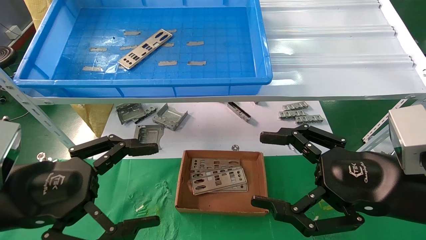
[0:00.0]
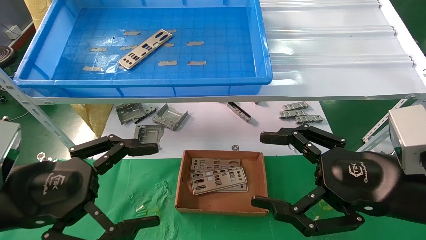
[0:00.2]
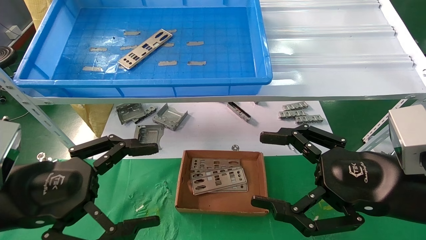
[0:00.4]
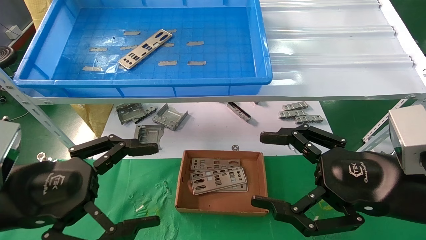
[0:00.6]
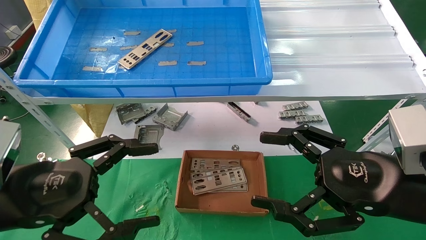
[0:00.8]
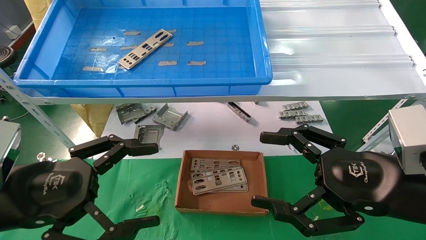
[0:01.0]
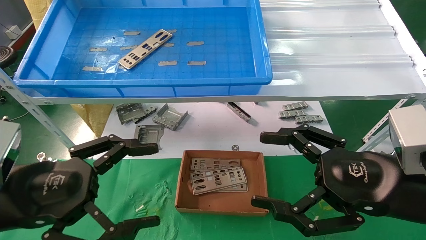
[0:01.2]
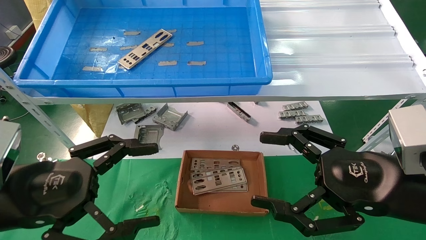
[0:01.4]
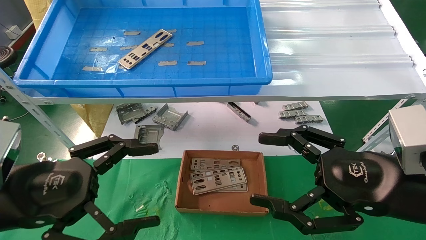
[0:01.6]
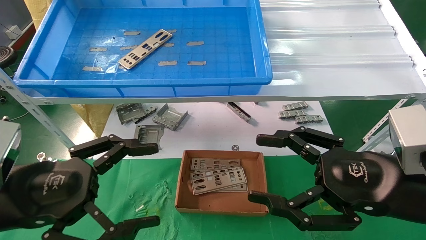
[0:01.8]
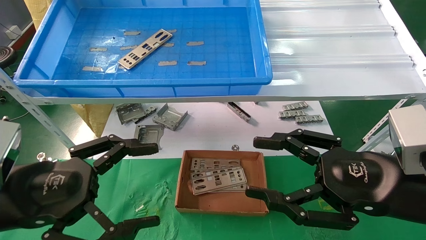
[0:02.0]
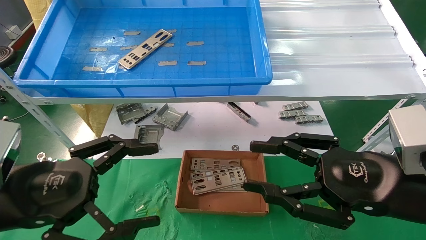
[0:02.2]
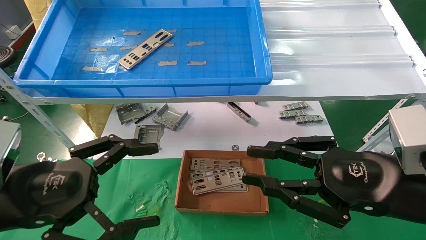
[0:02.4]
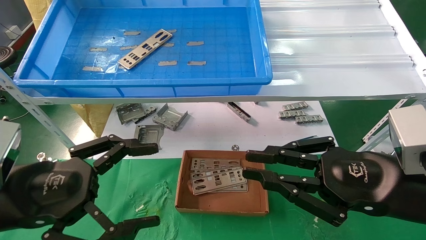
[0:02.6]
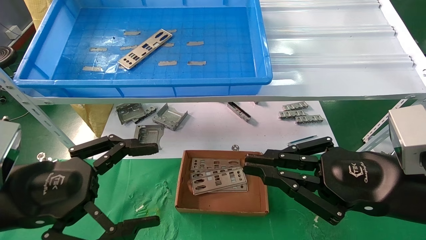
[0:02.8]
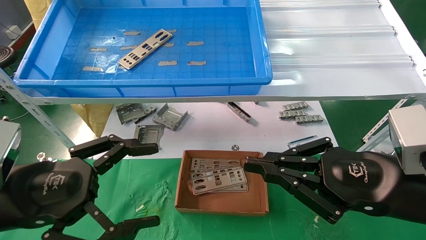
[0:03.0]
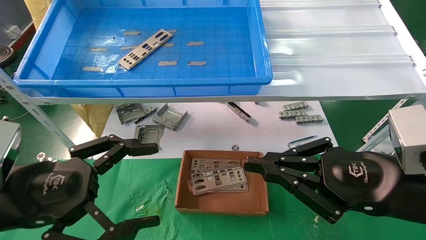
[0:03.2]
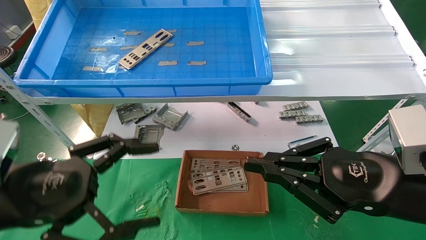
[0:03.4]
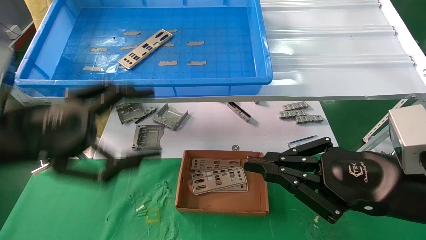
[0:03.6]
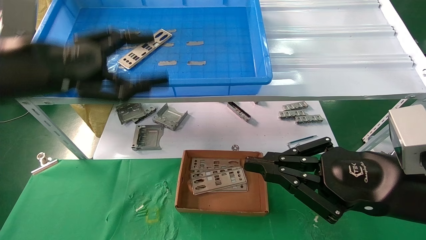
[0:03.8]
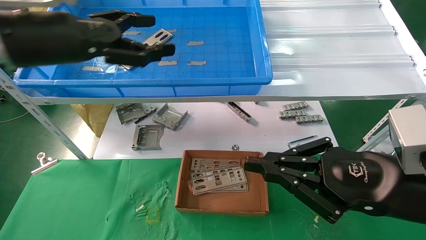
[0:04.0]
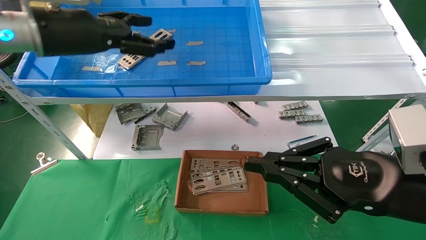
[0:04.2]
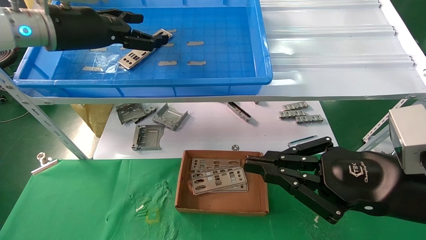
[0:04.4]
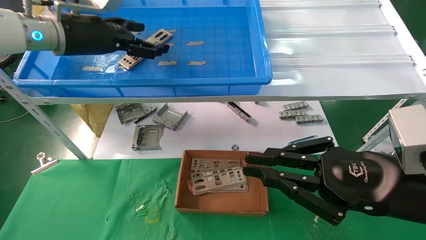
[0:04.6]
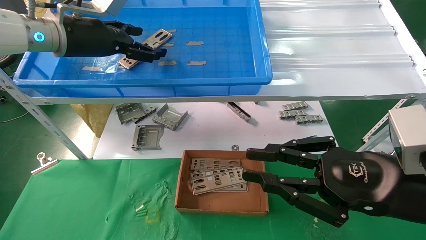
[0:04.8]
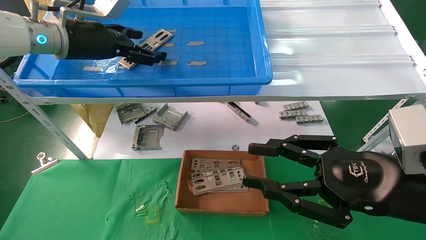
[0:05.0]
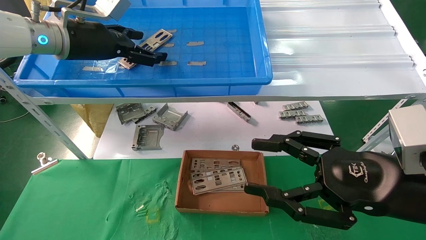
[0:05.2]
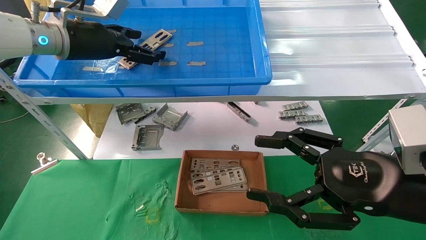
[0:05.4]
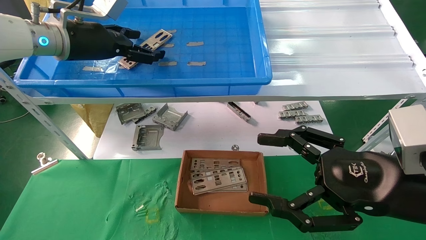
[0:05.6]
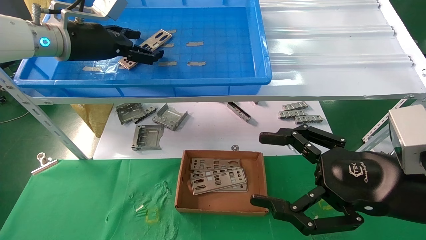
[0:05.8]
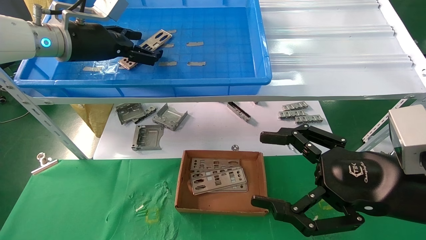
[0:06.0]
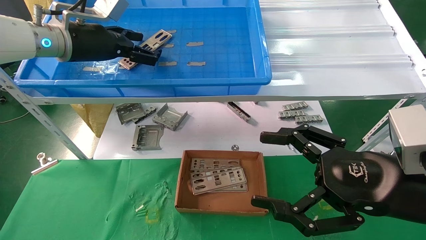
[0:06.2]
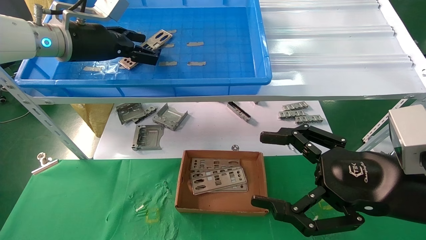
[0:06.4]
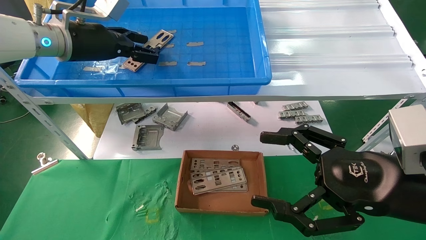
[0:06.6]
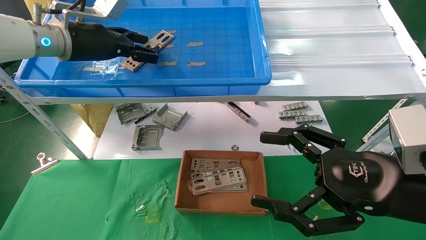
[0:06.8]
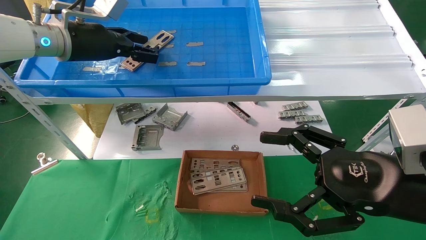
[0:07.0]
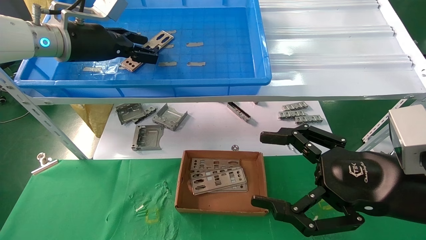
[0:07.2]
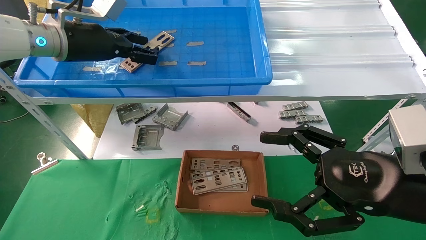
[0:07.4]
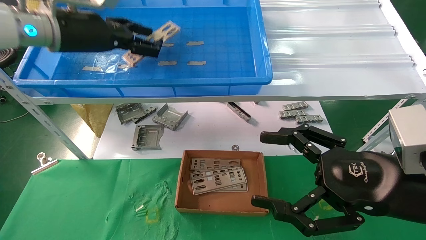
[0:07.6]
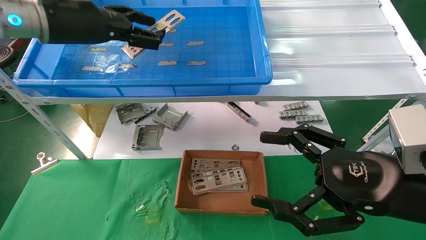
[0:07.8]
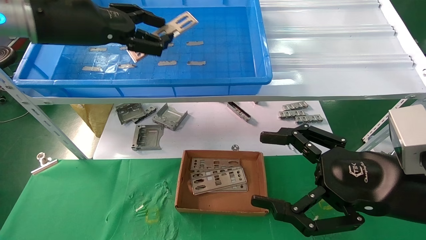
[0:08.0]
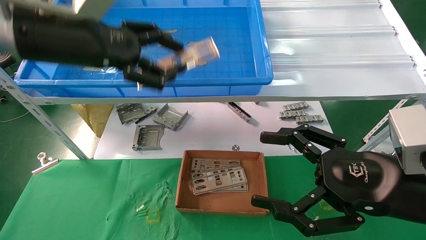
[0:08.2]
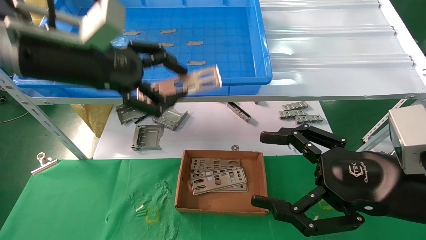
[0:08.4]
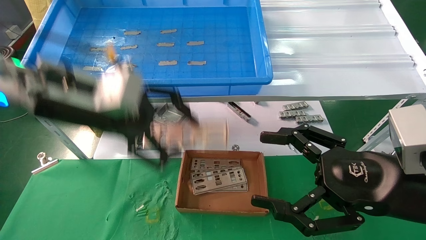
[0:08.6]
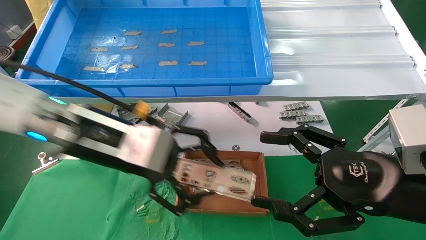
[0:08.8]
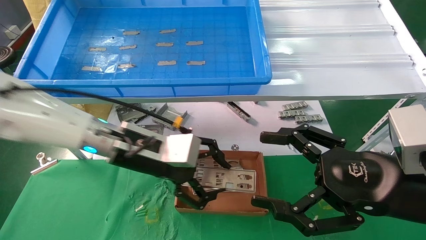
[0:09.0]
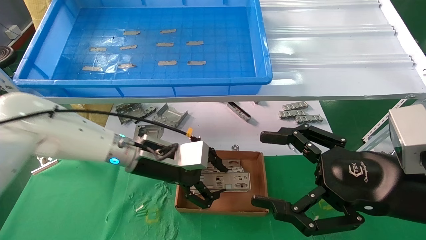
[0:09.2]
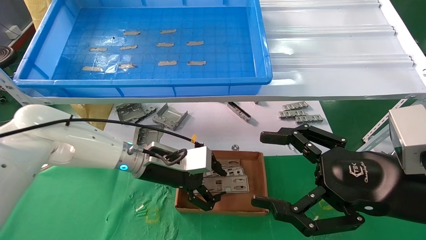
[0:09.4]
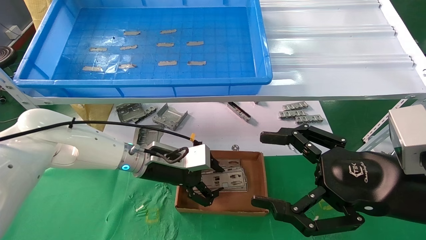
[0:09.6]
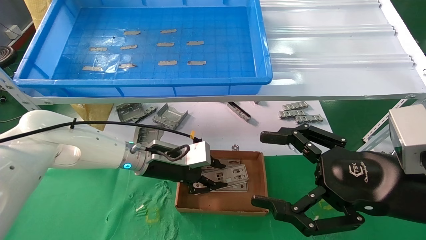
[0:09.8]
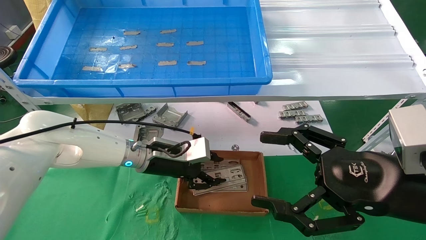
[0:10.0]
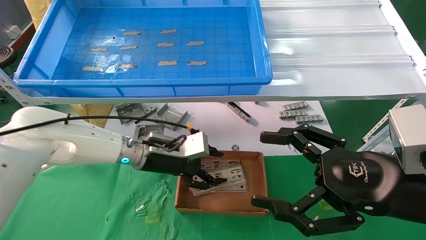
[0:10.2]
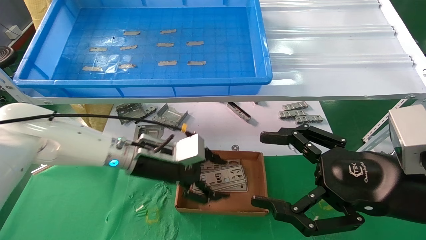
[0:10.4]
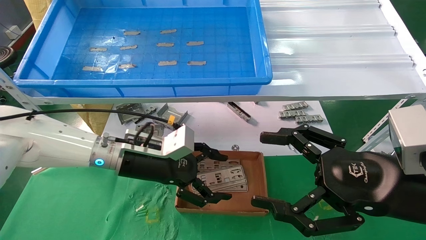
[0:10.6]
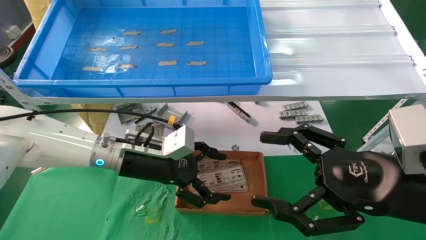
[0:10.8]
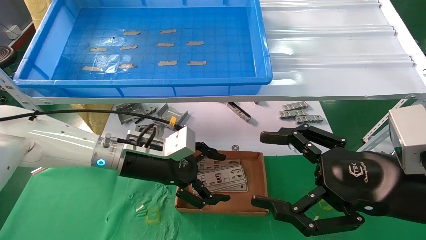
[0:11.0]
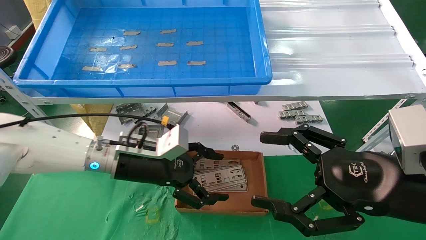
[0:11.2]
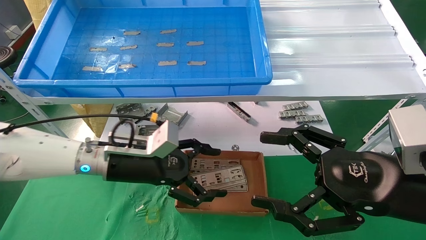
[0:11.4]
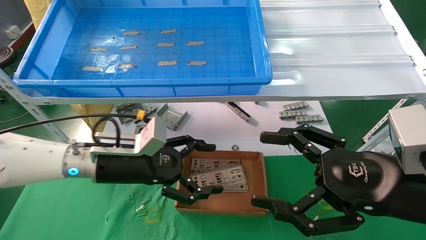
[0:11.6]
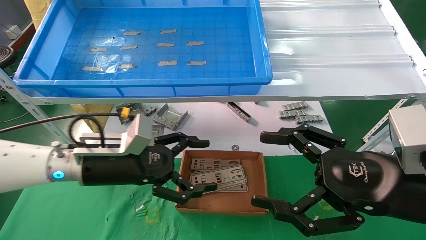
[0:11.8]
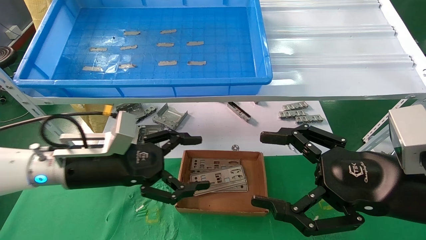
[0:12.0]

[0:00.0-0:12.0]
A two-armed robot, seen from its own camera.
Task of the whole recording: pick up the parts on the tray and put them in the cardboard box.
Step, 0:03.8 to 0:06.8: Pick up the IO bracket from the container box.
Step, 0:07.0 to 0:10.2: Place the IO bracket into the ingredient slot.
0:00.0 to 0:01.6: Both grippers stay about where they are.
0:01.6 to 0:03.0: The right gripper closes its fingers.
0:03.0 to 0:04.4: The left gripper is displaced forward and upward by approximately 25 cm.
0:04.4 to 0:06.0: The right gripper opens up.
0:06.0 to 0:07.6: The left gripper closes.
0:07.6 to 0:09.0: The left gripper heads downward and to the right, covering roughly 20 cm.
0:09.0 to 0:10.4: The left gripper is displaced downward by approximately 5 cm, and opens up.
0:10.4 to 0:12.0: The left gripper goes about 10 cm to the left and backward, and opens.

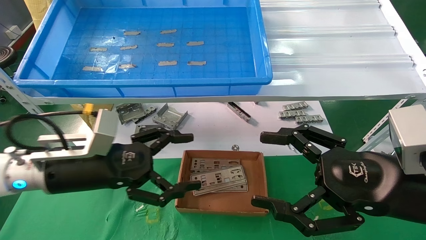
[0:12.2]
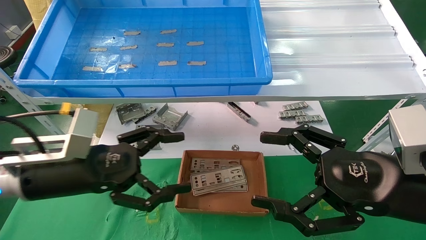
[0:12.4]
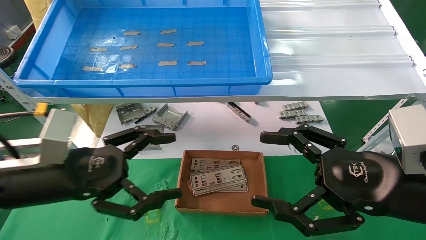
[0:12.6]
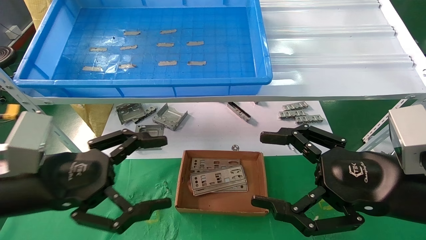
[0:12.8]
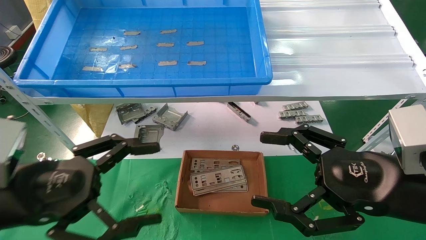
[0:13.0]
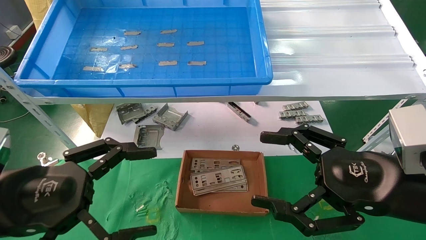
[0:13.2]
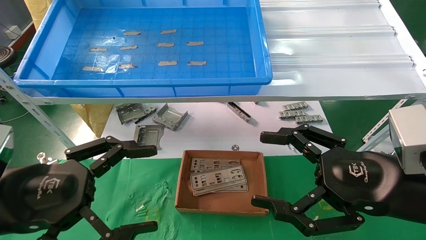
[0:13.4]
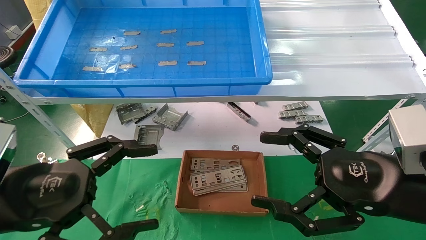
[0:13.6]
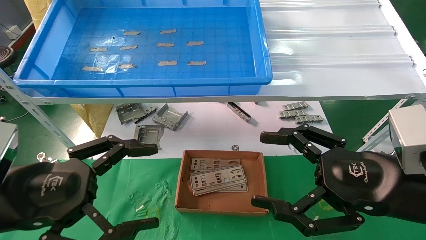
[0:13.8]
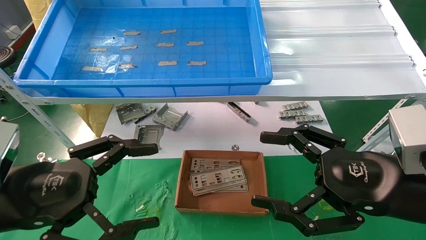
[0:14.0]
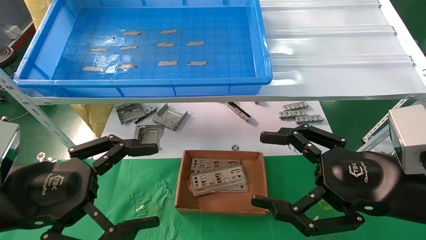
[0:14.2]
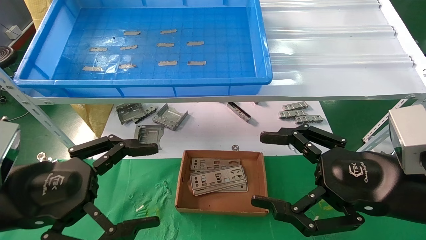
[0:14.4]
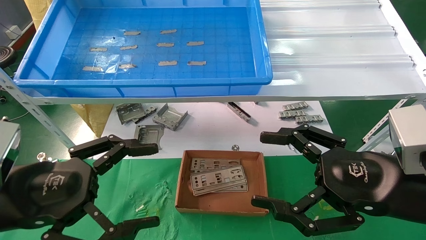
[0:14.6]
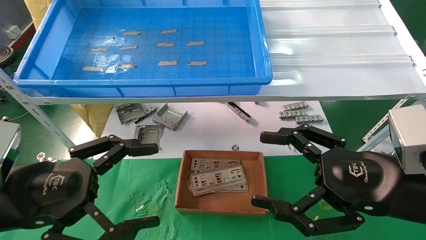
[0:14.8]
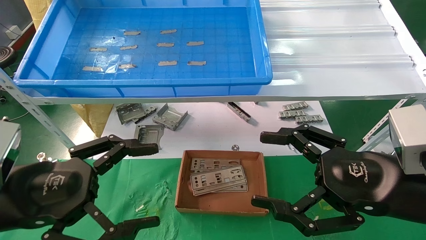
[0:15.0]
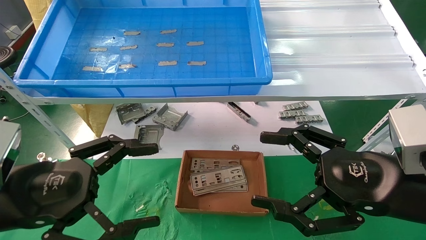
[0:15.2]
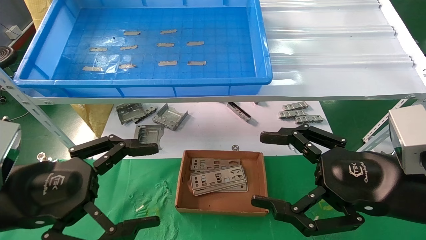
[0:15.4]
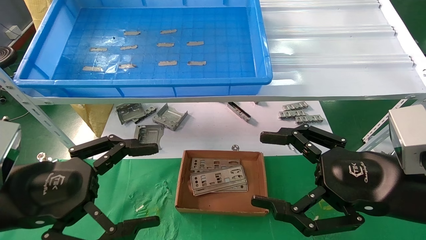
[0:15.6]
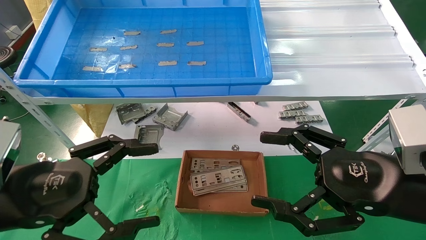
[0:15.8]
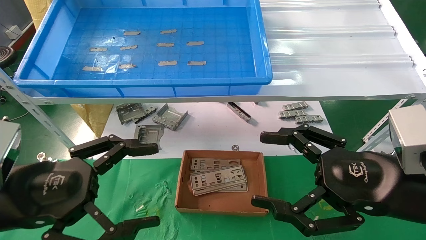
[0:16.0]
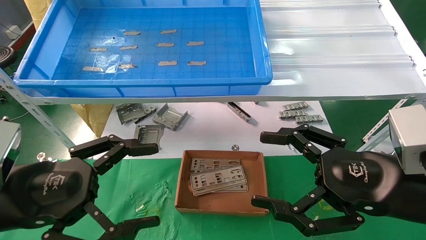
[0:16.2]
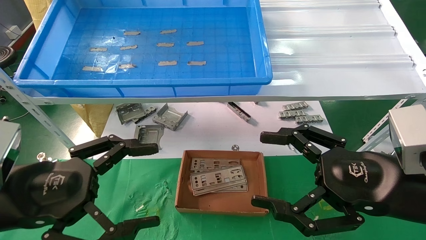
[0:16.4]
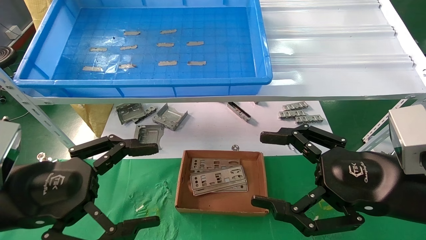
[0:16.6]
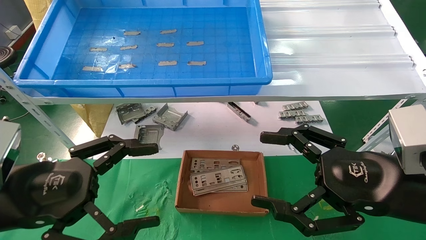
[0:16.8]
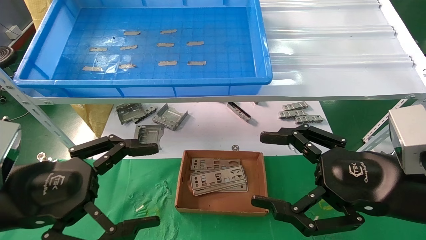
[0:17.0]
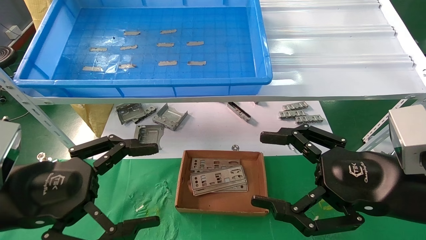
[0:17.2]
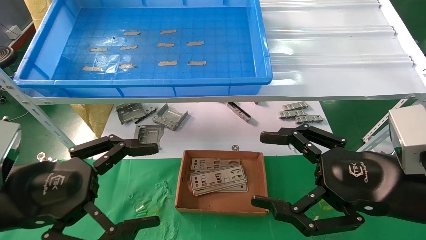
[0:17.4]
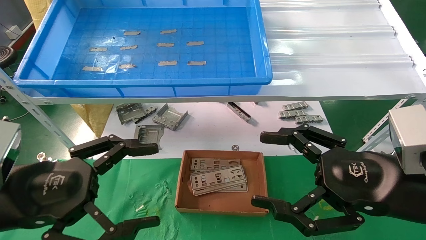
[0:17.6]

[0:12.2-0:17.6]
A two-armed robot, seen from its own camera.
Task of the whole recording: pick up the parts on the tray and put them in the cardboard box.
0:12.2 to 0:13.6: The left gripper travels backward by approximately 10 cm.
0:13.6 to 0:17.6: Neither gripper changes place.
